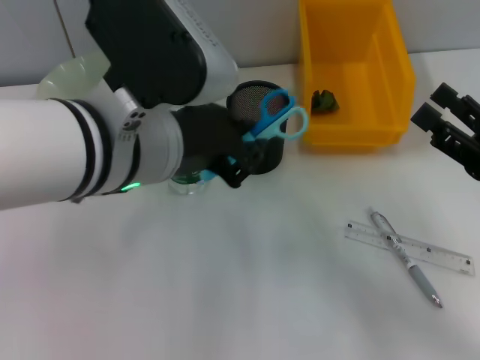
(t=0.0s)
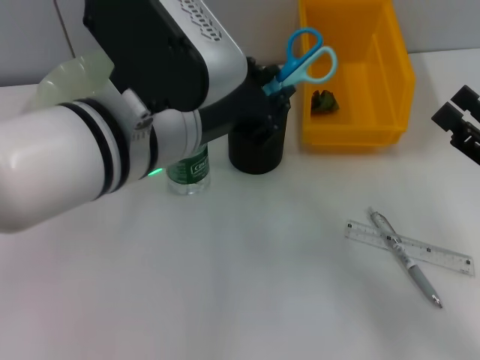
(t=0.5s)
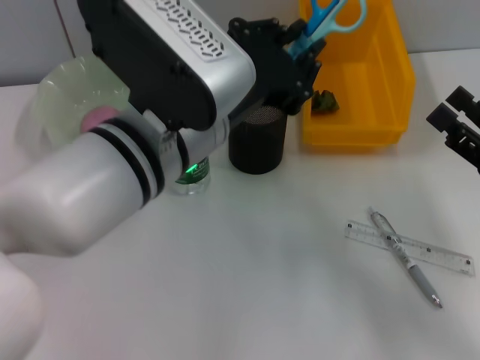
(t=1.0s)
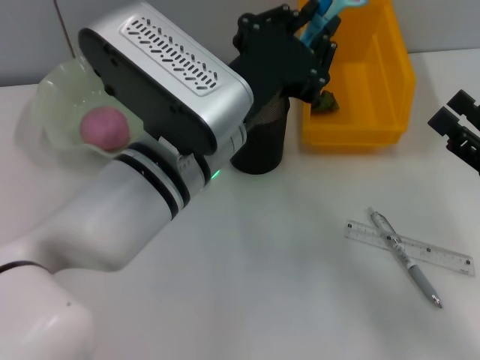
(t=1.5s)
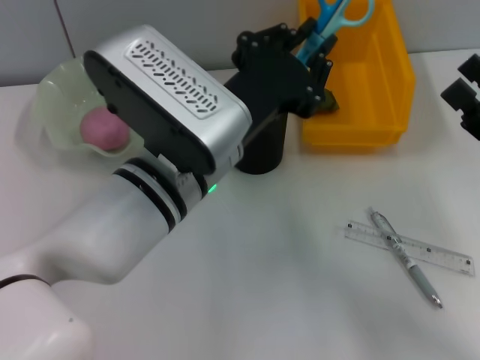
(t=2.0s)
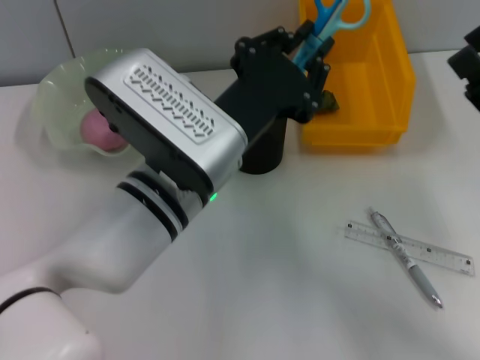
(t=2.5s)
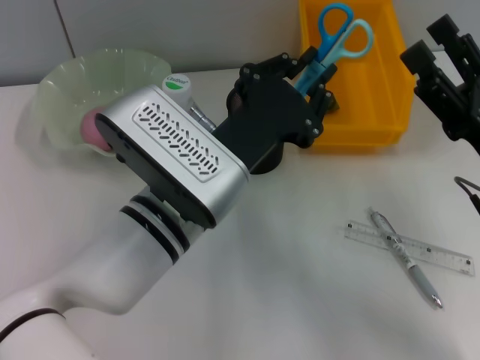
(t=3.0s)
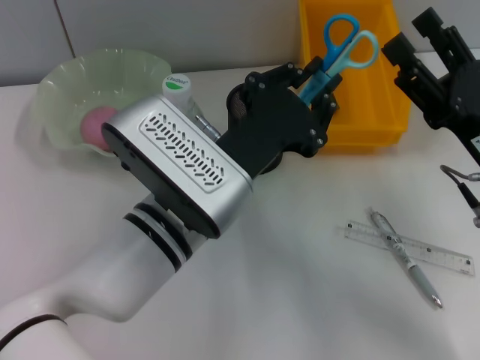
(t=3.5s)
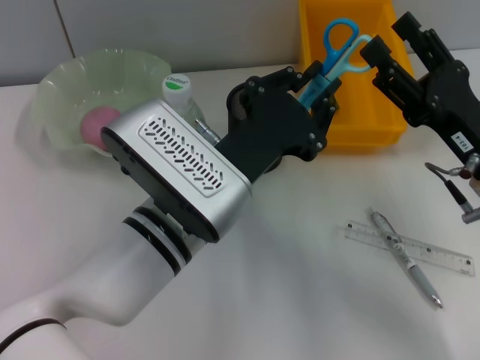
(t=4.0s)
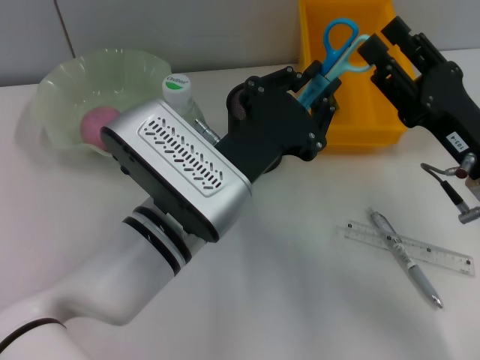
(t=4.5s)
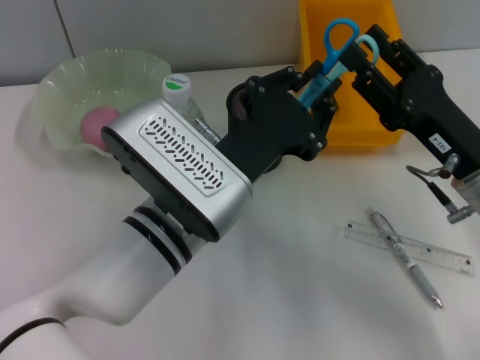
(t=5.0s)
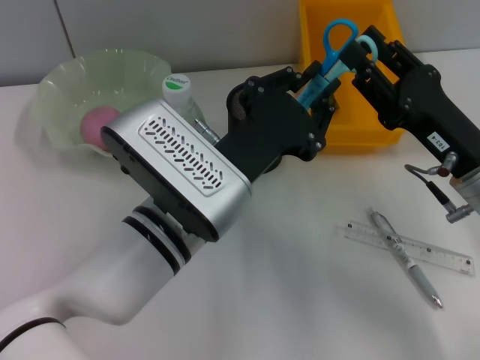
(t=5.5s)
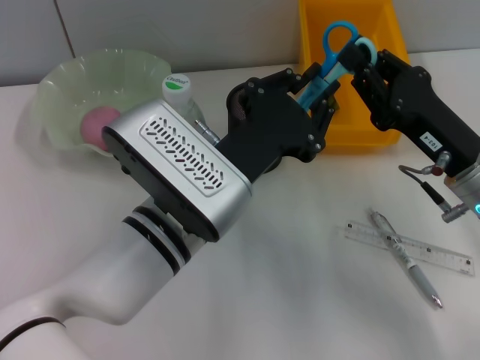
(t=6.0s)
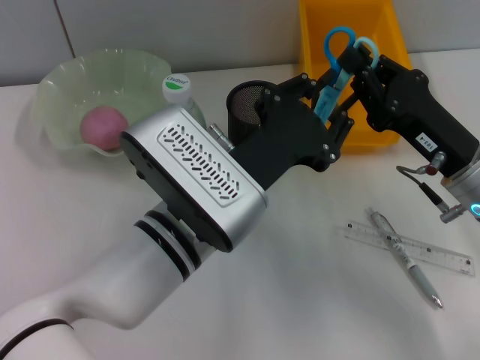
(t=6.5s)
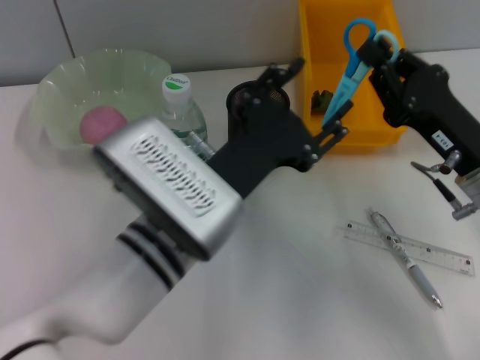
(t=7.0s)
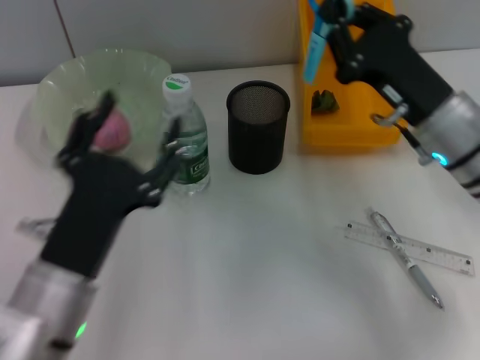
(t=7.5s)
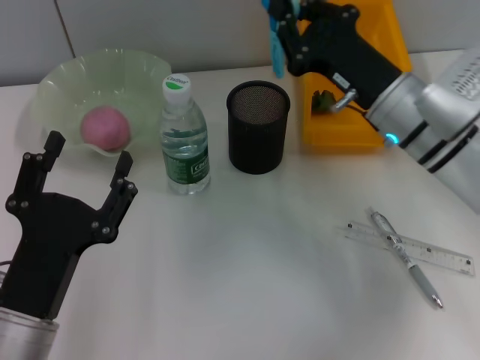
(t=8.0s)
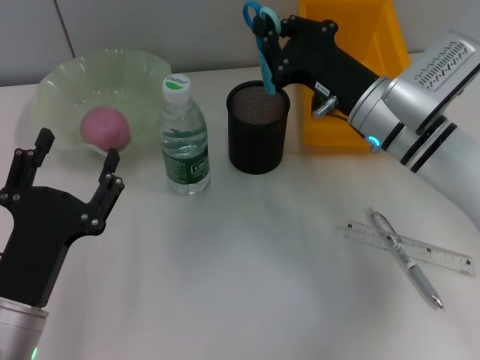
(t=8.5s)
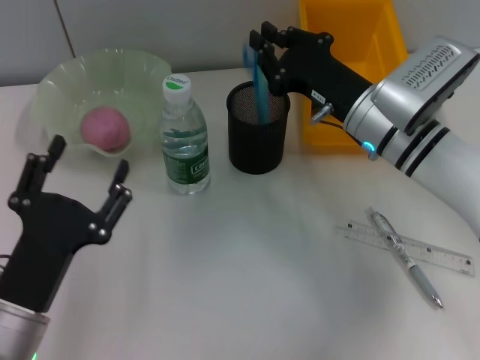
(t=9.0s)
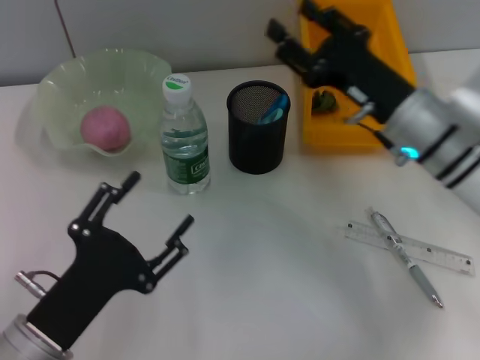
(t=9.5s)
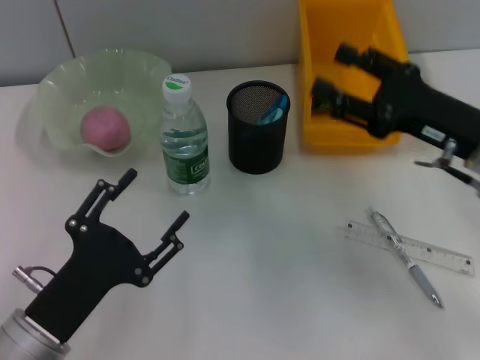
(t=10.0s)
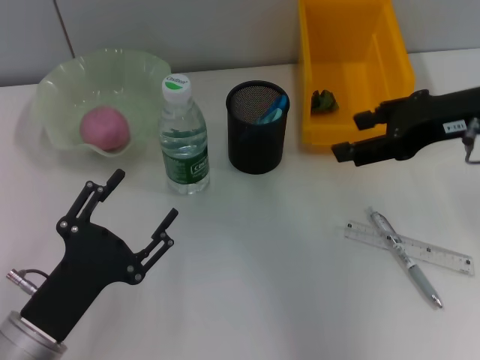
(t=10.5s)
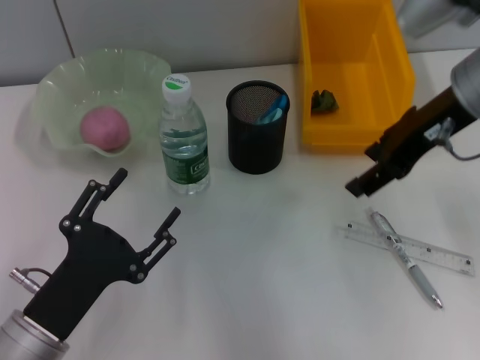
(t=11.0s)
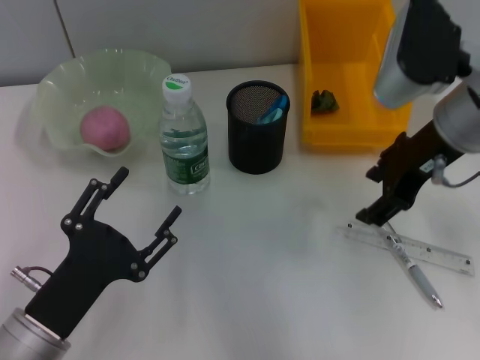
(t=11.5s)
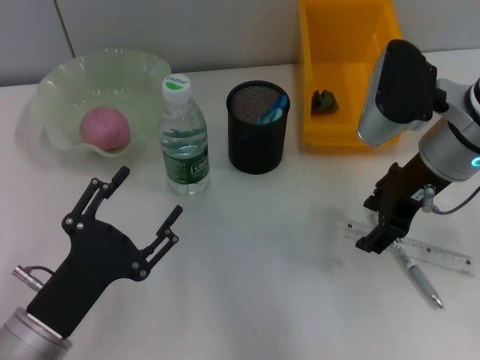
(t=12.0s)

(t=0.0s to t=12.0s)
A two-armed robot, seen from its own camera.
Step, t=0.0s - t=6.5s: Pass the blue utility knife from the left hand to the right hand.
Step, t=7.0s - t=9.0s: Place the blue scissors into the pen holder with the right hand.
t=0.0s - t=2.0s: The left gripper travels downward by some 5 cm.
t=2.0s - t=4.0s: The right gripper heads to the left, covering some 5 cm.
t=4.0s - t=6.0s: The right gripper closes up.
t=6.0s - t=8.0s: The right gripper goes some 10 cm forward and to the left, and closes up. The left gripper shifts some 20 cm to the left, backward and downward, and opens its fingers.
t=8.0s - t=10.0s: The right gripper shifts roughly 10 cm to the right and backward, and opens its fingers.
t=10.0s - t=12.0s: The right gripper travels to the left by about 5 cm.

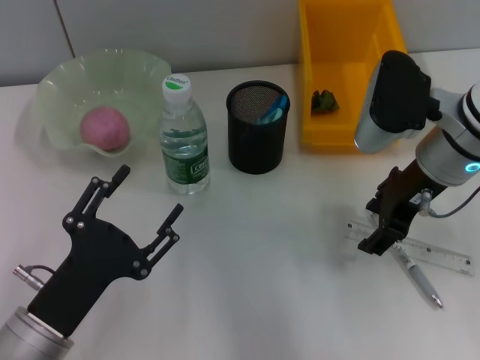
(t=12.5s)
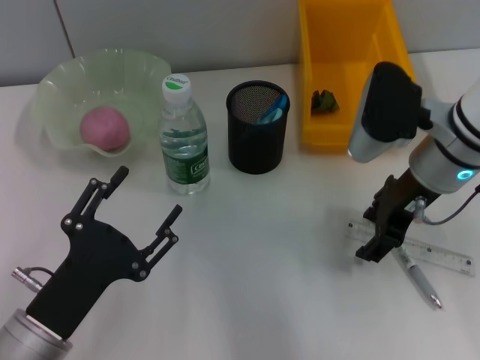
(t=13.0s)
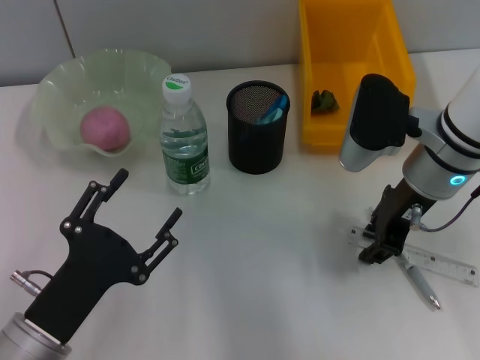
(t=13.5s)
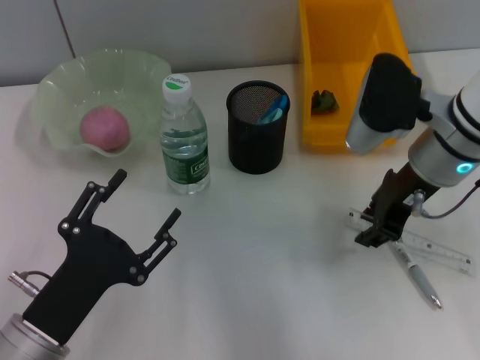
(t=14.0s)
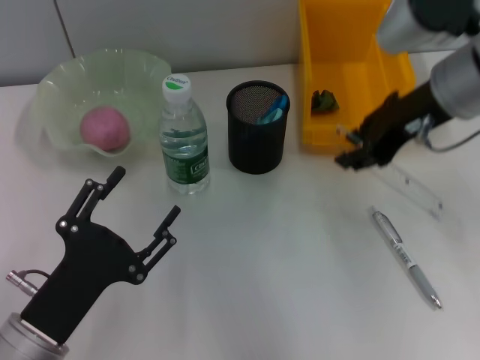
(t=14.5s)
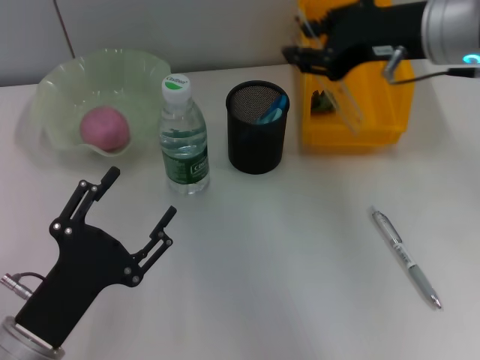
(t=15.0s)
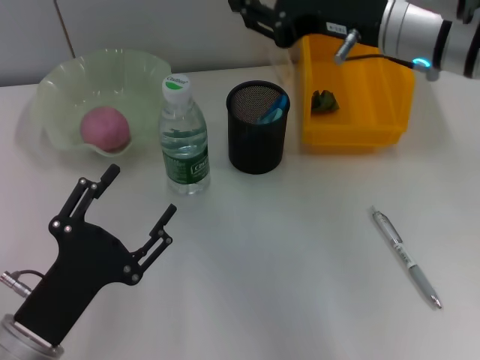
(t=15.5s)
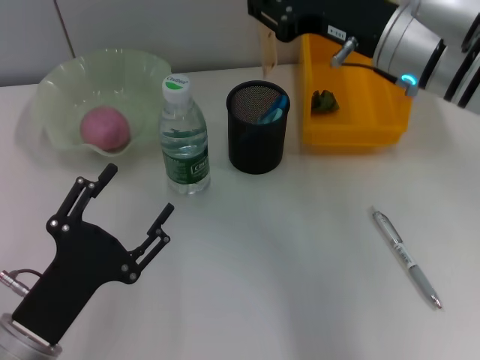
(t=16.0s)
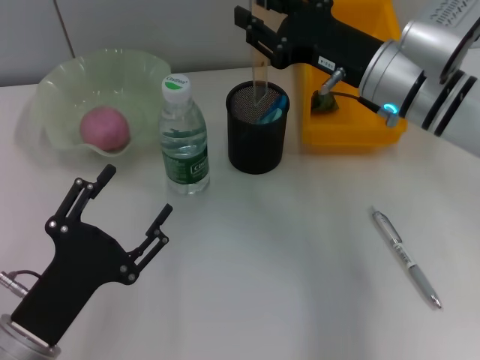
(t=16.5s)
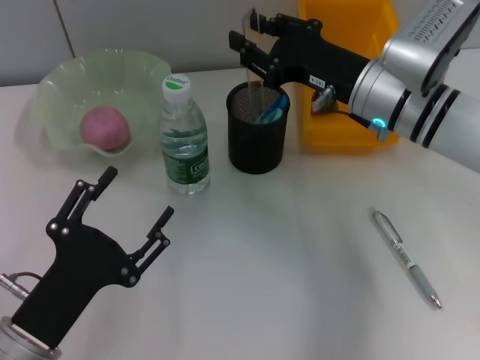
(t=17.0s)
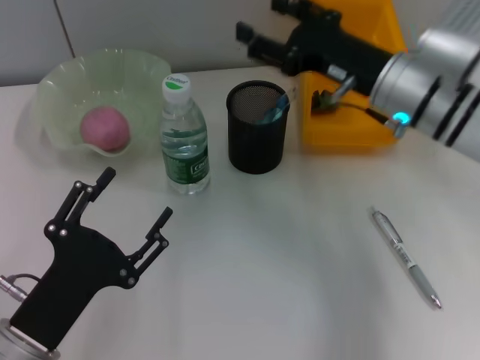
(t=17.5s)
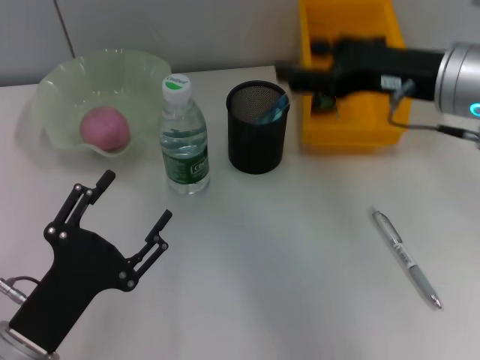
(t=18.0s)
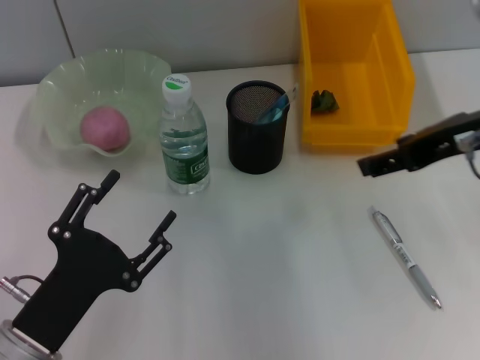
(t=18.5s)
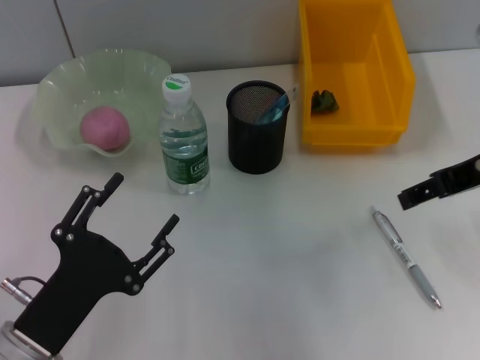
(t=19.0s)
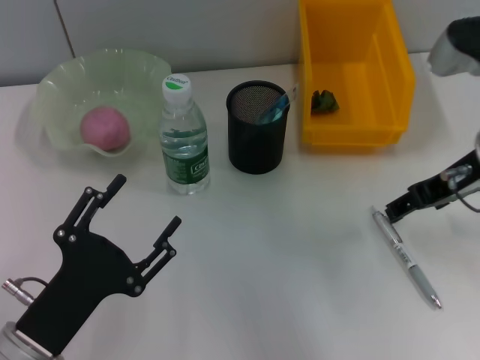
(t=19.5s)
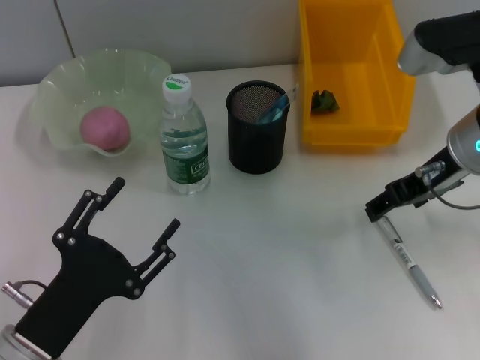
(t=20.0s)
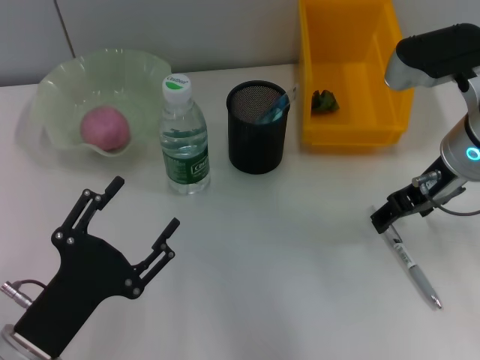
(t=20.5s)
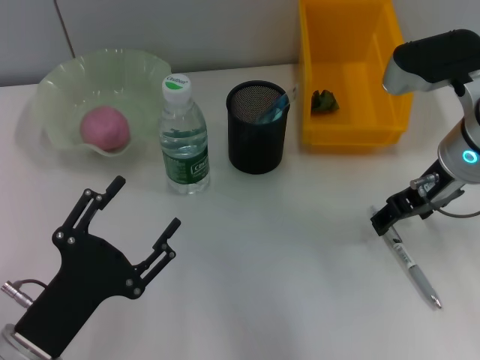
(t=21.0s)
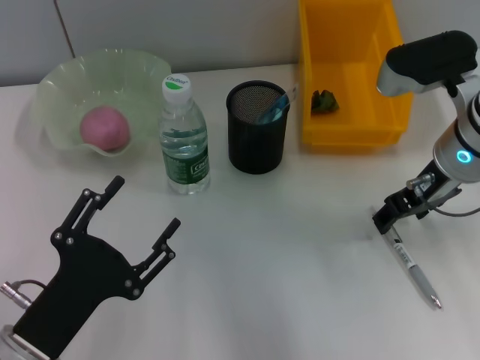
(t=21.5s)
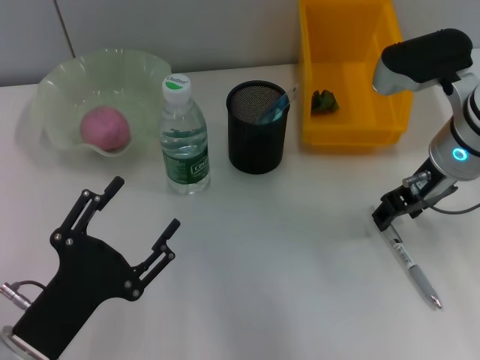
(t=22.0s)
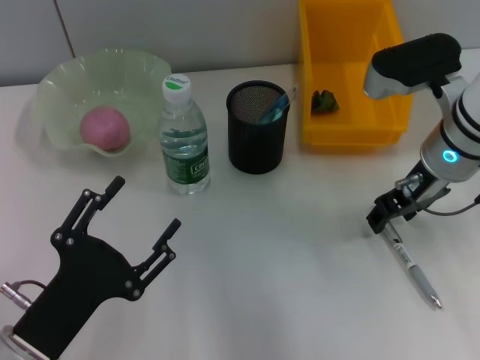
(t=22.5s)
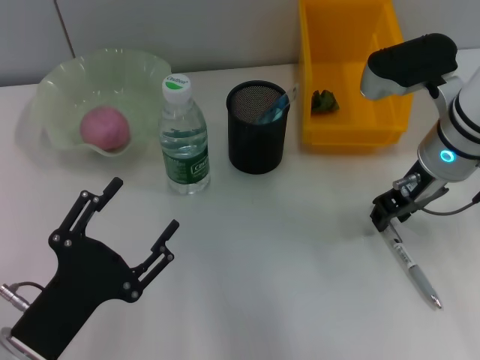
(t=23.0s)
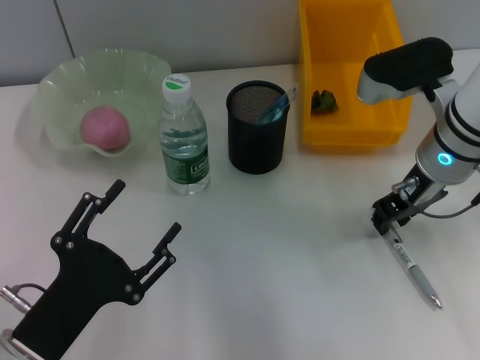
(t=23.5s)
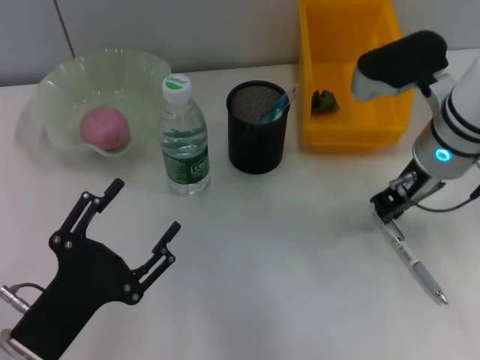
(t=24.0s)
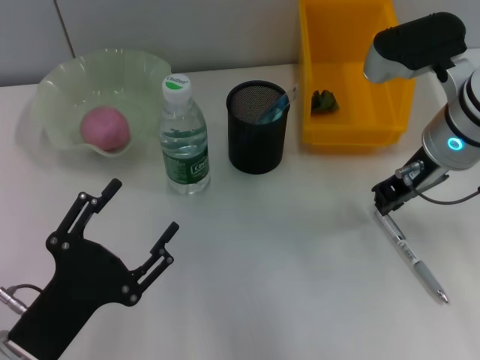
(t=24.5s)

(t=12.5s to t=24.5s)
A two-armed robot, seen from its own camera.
Step, t=14.0s - t=17.0s: Place the ruler into the pen holder with the right hand.
t=12.5s - t=14.5s: The right gripper heads upward, covering about 10 cm, and closes its fingers.
t=14.5s - t=16.5s: The right gripper heads downward, covering about 10 cm.
t=16.5s - t=18.5s: The right gripper goes some 15 cm upward, backward and to the right, and opens up.
t=18.5s - t=20.5s: The right gripper moves downward and forward, some 10 cm.
t=20.5s - t=22.5s: The grippers move only a little.
t=22.5s - t=24.5s: The right gripper closes.

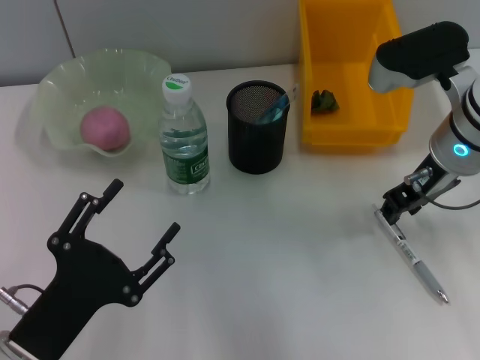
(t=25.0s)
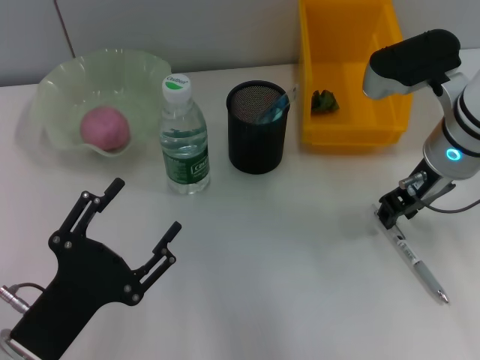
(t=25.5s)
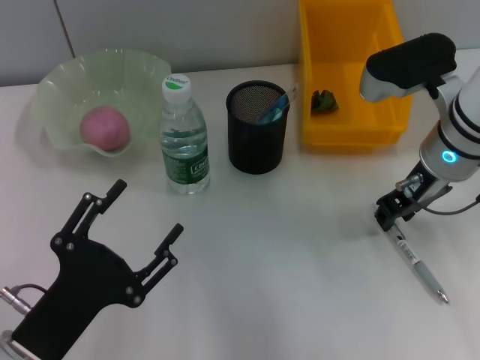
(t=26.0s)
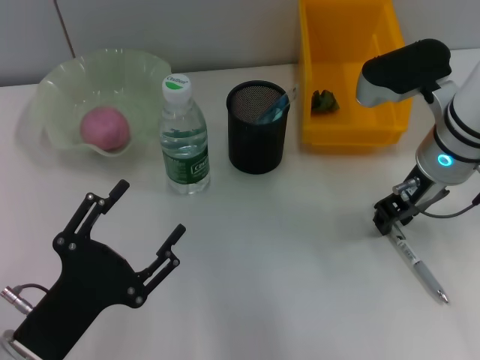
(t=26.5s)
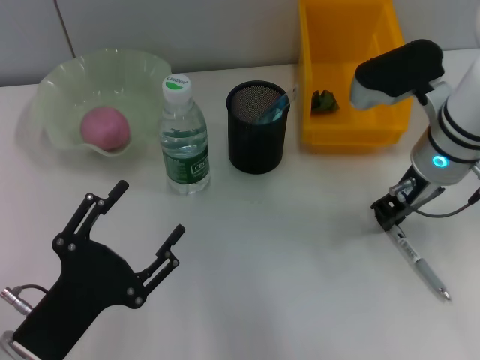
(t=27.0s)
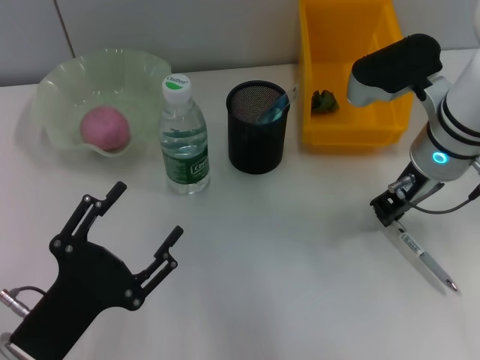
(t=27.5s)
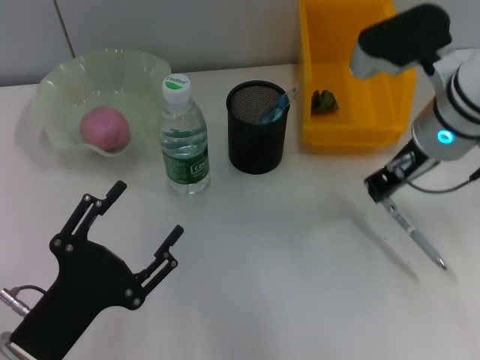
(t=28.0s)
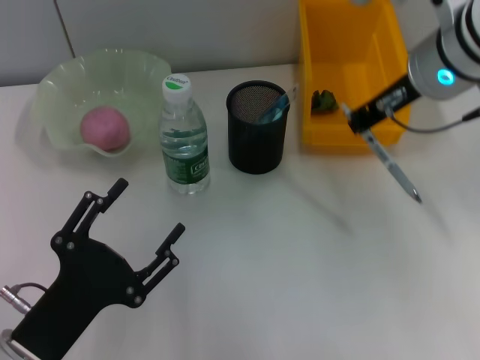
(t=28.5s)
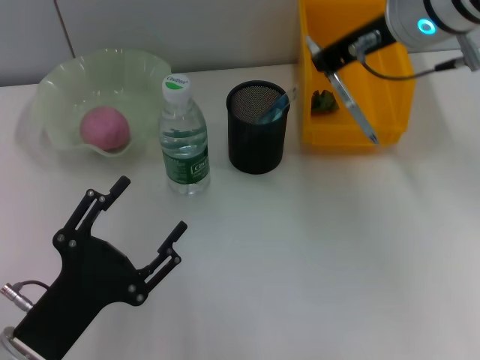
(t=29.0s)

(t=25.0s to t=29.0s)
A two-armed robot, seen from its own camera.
Step, t=25.0s - t=27.0s: Grab the gray spring-action pen with the right hand.
t=25.0s - t=27.0s: There are only small adjustments of the grippers.
t=27.0s - t=29.0s: The right gripper shifts roughly 15 cm upward.
